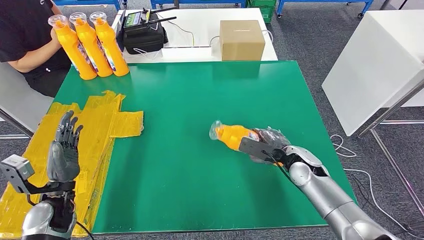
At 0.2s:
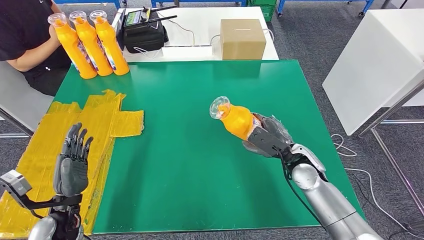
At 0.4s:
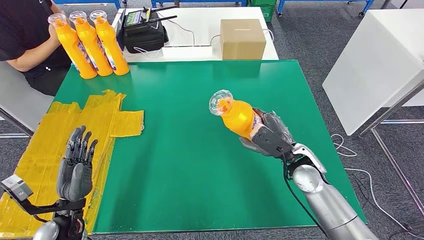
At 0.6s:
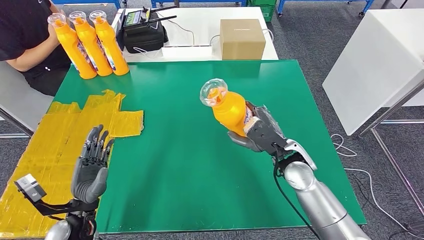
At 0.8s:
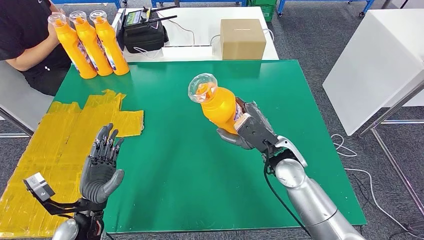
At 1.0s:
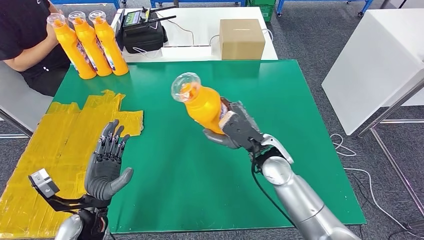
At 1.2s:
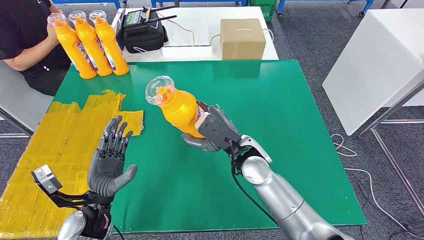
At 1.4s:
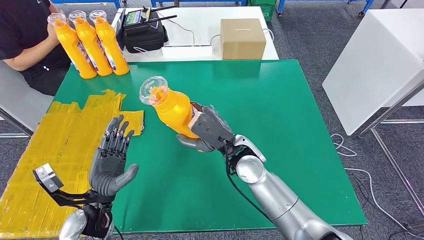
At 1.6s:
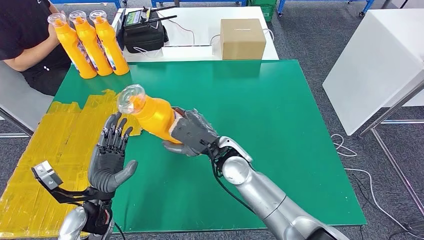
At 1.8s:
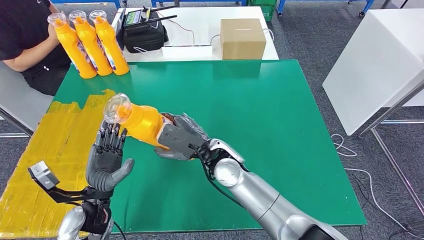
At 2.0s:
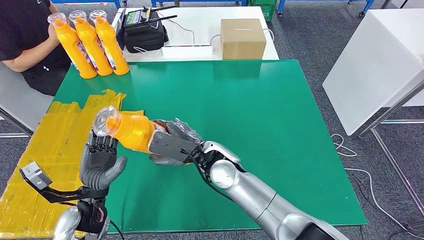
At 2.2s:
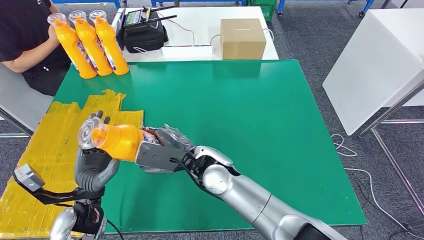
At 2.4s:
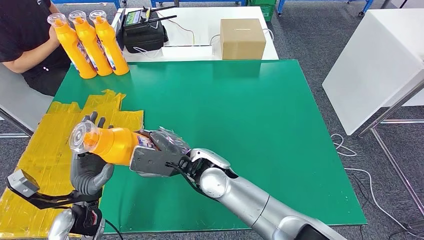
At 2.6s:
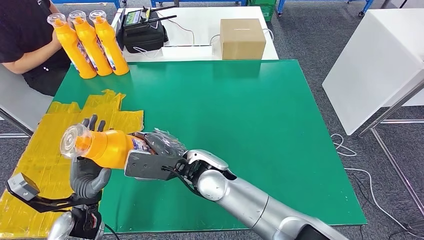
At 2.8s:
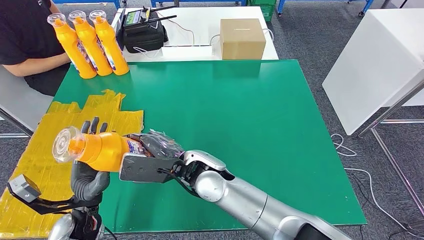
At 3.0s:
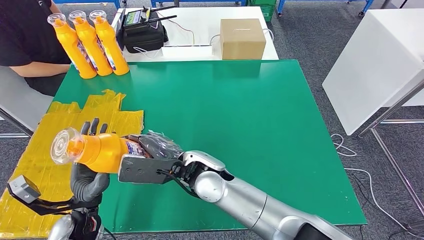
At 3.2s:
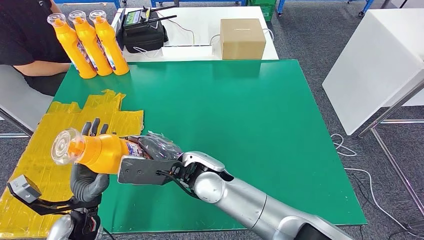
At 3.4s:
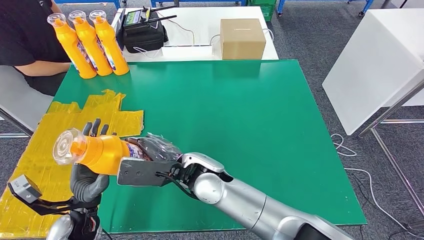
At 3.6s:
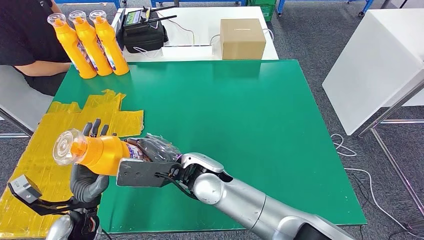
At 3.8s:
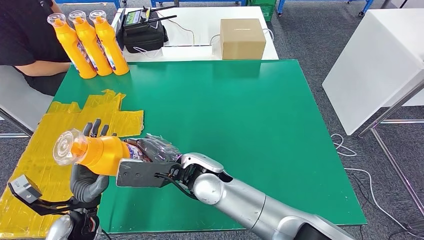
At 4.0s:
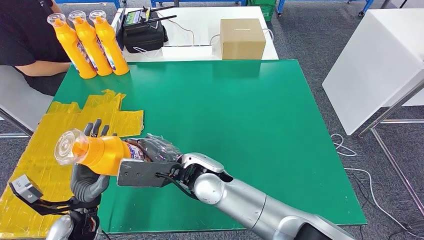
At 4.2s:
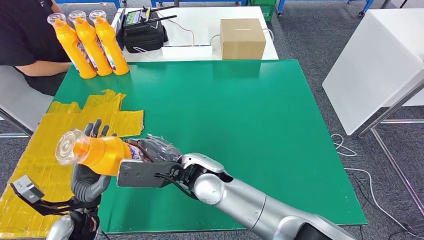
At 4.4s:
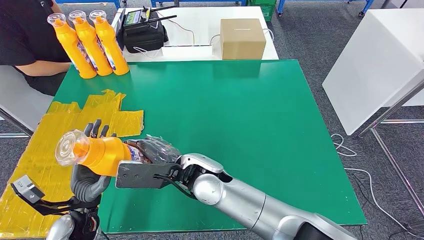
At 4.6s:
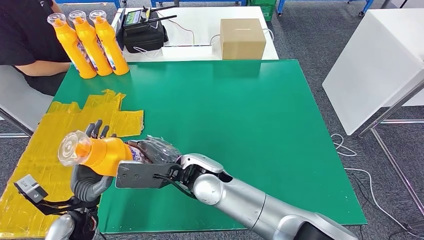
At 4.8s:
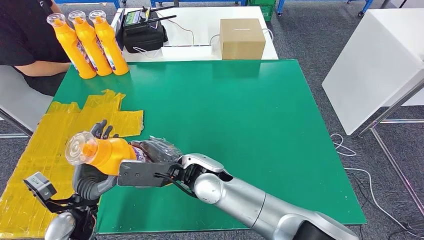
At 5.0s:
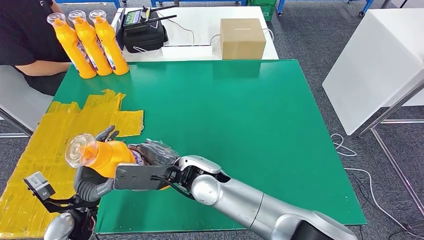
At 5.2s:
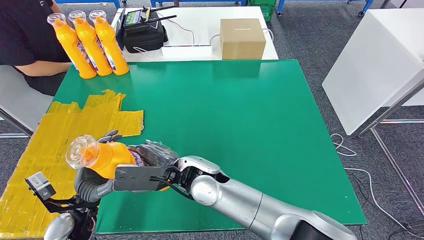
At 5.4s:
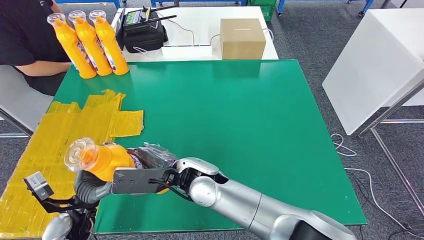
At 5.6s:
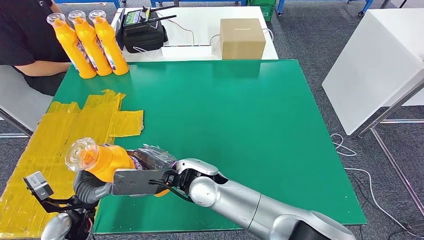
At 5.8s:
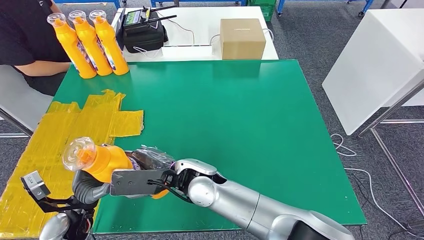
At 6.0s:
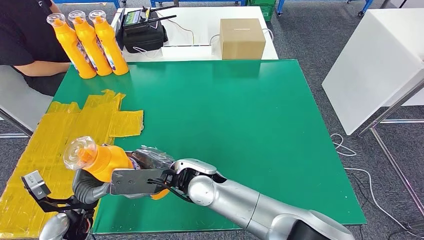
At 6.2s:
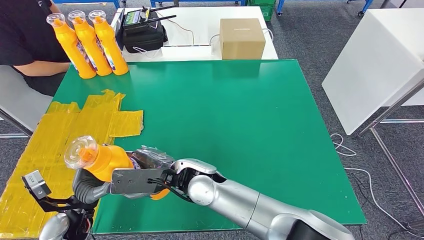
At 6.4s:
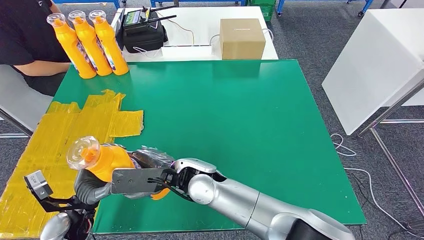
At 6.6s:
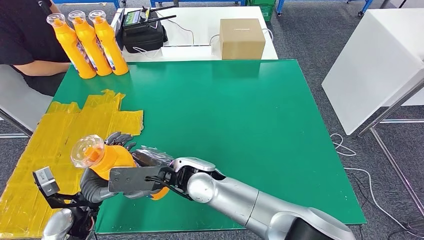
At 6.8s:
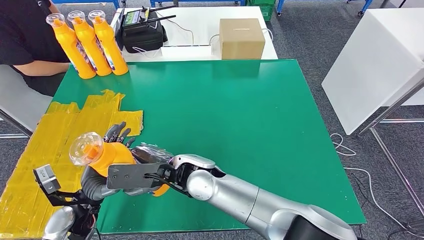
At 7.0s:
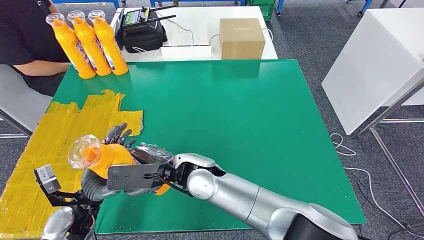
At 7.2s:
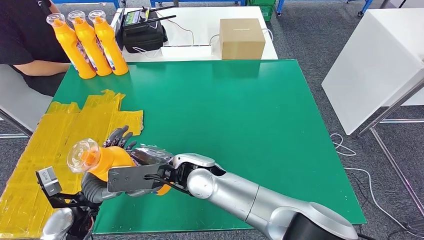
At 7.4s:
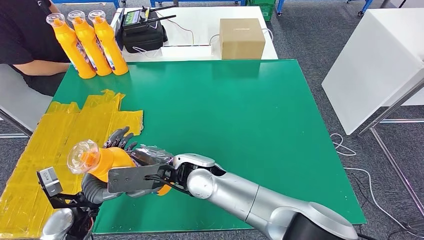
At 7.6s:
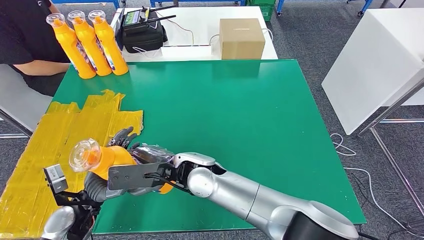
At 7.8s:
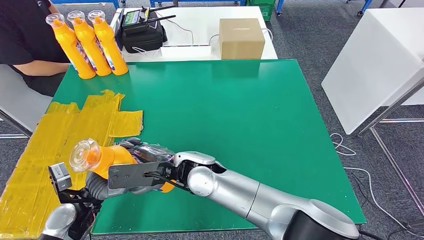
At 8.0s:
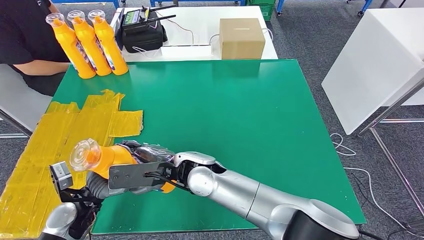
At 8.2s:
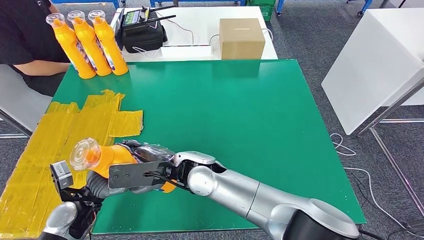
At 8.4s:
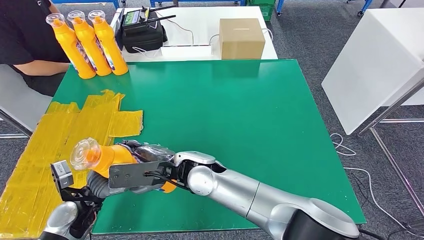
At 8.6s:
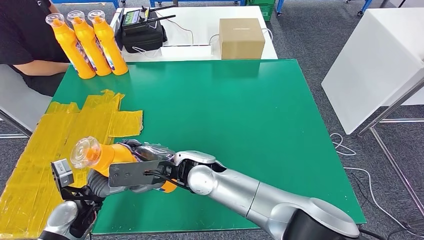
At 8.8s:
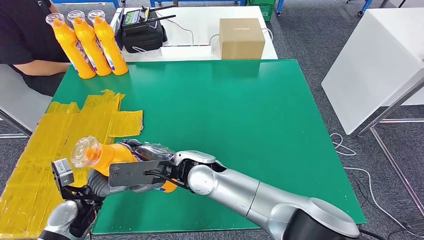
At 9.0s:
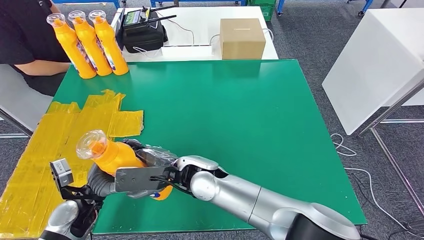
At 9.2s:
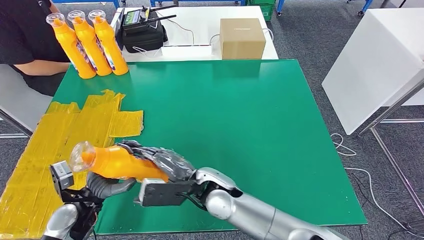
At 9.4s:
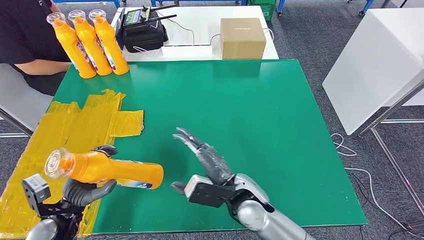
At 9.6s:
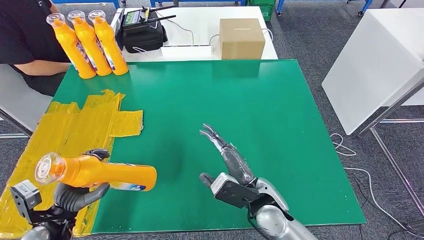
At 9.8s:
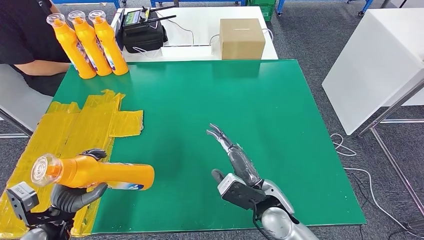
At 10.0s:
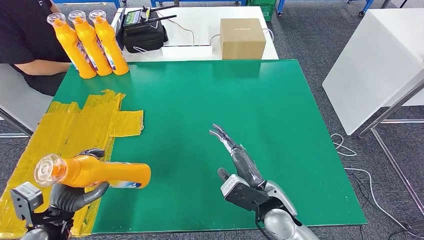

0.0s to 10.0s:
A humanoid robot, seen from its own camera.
2.8s to 5.8s: The hands move only a little.
5.8s to 8.6s: The hands stay close to where they were, moving slightly.
8.6s to 10.0s: The right hand moves to the right, roughly 20 cm, while the left hand shifts some 10 cm to the left and backward.

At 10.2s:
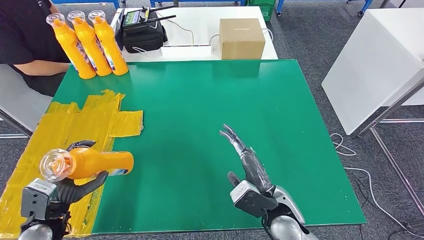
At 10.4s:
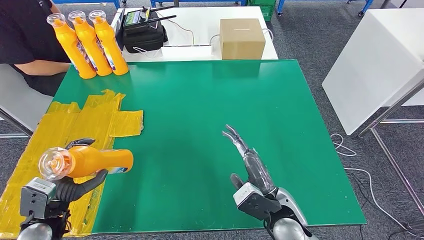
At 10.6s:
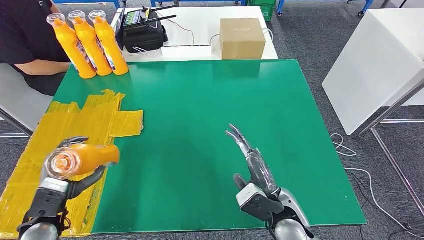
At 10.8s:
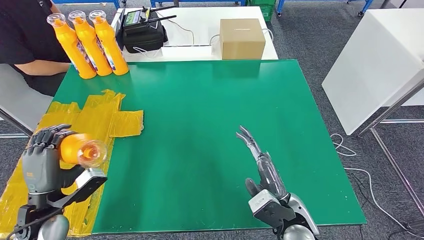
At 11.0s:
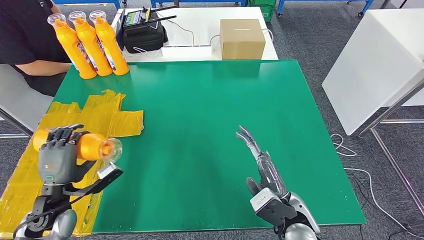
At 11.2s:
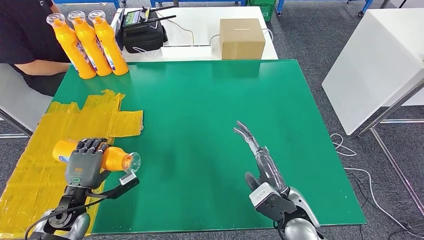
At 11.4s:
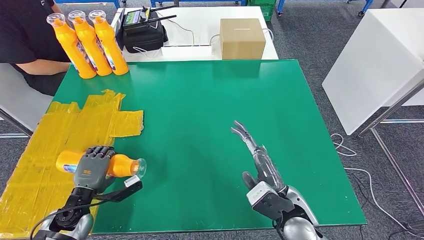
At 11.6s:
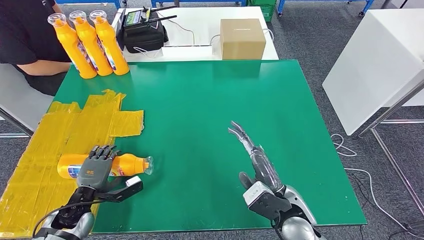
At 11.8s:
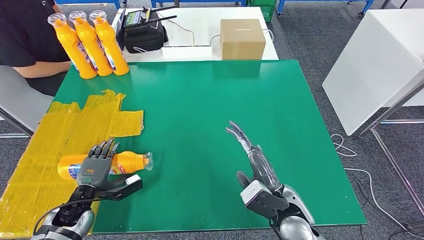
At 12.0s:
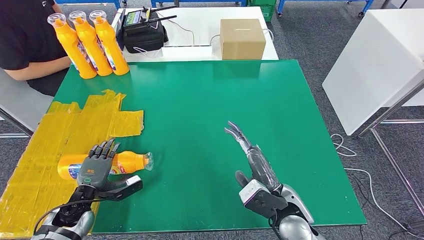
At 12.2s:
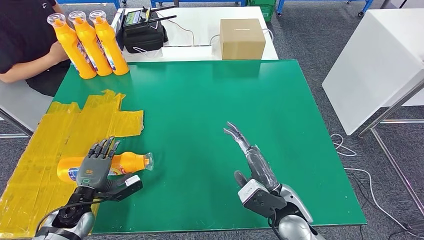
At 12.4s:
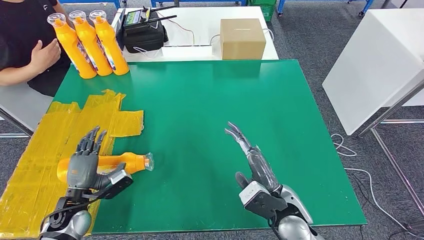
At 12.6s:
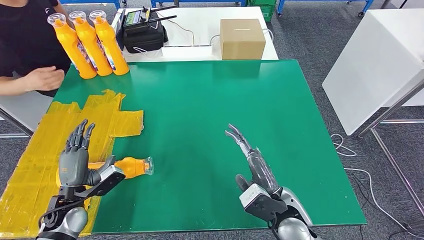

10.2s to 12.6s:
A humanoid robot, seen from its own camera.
Step, 10.2s to 12.6s: Flip the fast-moving consumer goods bottle to the front side.
10.2s to 11.4s: The left hand shifts some 5 cm downward.
